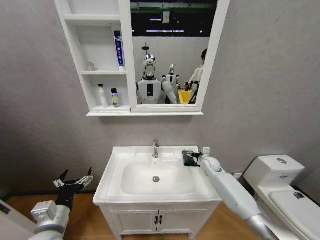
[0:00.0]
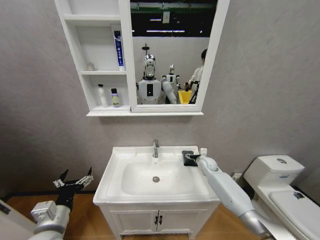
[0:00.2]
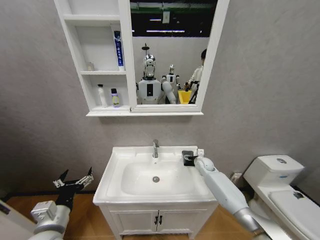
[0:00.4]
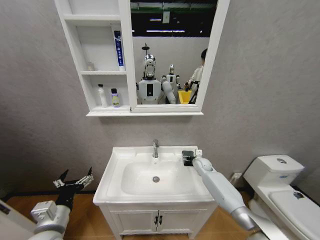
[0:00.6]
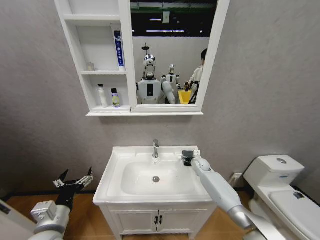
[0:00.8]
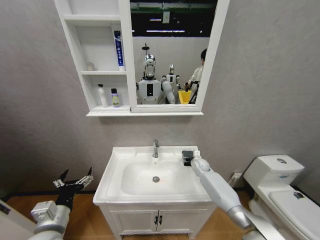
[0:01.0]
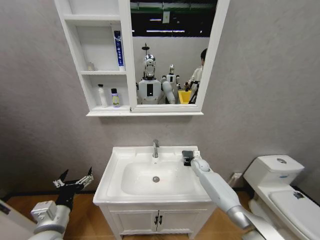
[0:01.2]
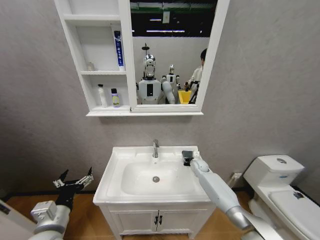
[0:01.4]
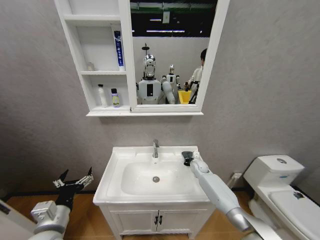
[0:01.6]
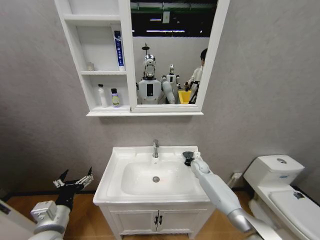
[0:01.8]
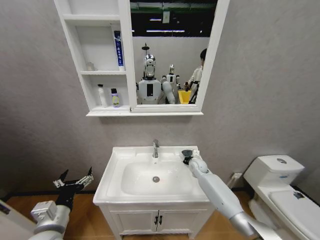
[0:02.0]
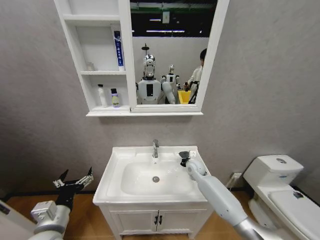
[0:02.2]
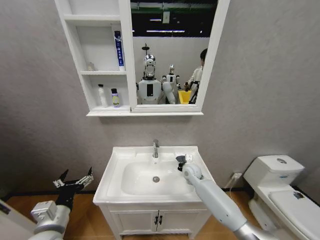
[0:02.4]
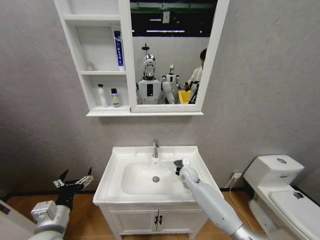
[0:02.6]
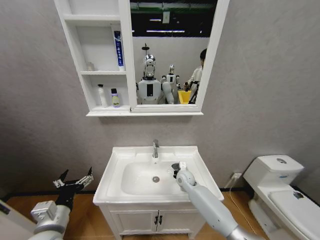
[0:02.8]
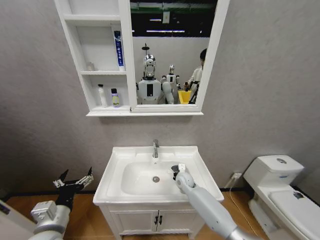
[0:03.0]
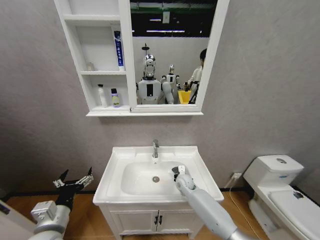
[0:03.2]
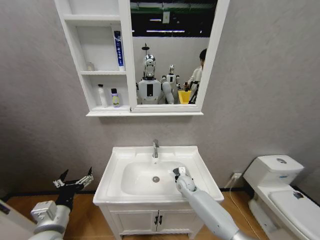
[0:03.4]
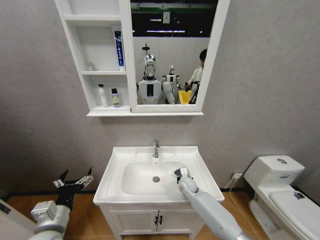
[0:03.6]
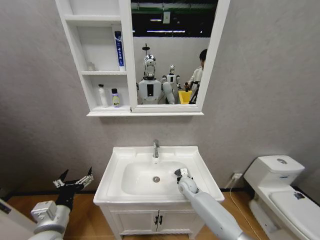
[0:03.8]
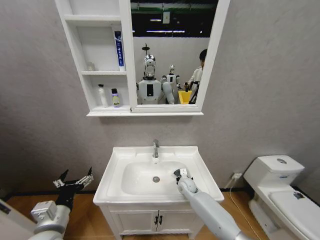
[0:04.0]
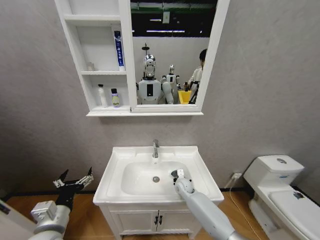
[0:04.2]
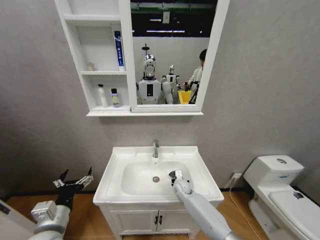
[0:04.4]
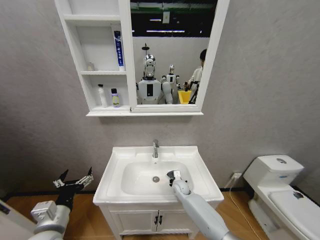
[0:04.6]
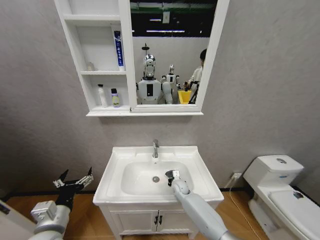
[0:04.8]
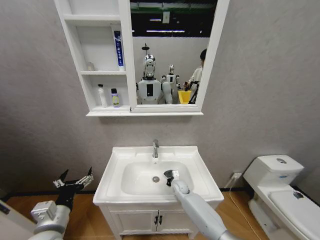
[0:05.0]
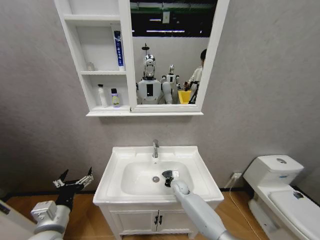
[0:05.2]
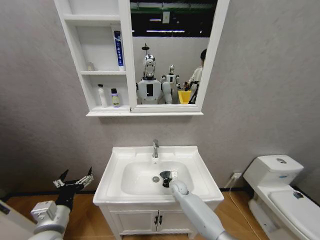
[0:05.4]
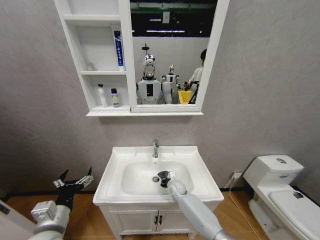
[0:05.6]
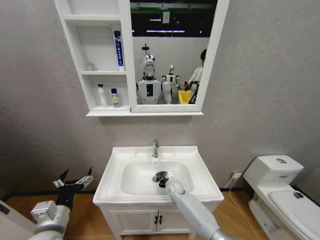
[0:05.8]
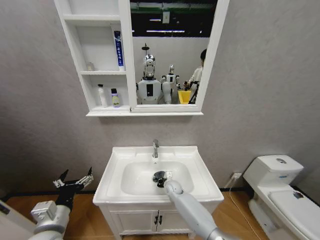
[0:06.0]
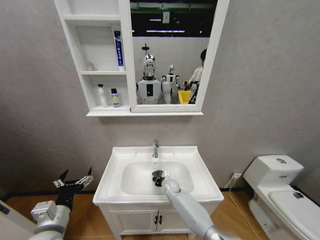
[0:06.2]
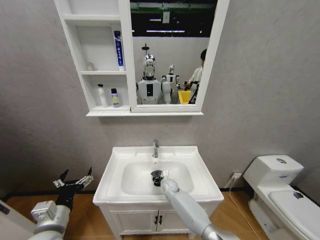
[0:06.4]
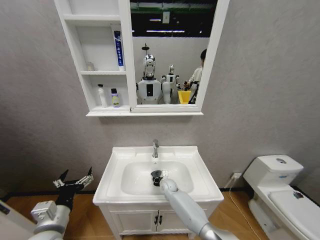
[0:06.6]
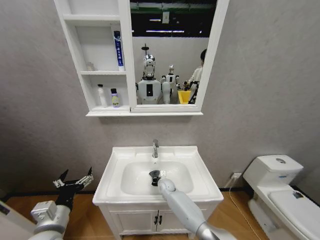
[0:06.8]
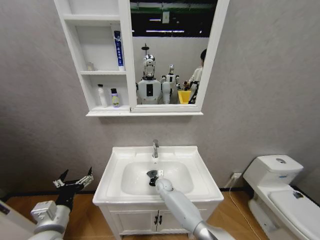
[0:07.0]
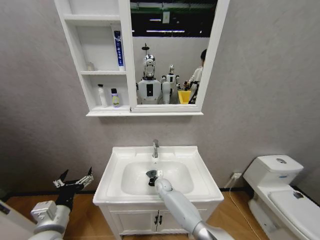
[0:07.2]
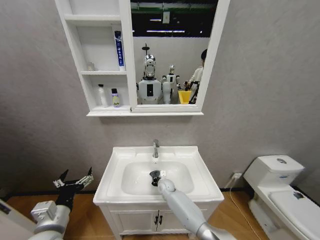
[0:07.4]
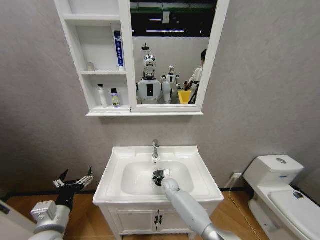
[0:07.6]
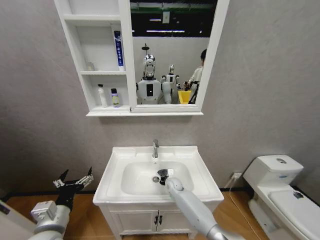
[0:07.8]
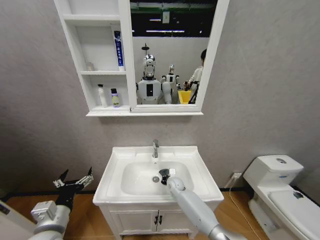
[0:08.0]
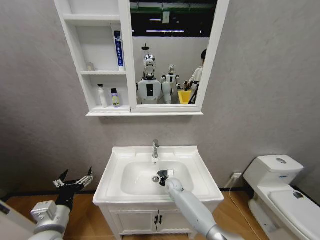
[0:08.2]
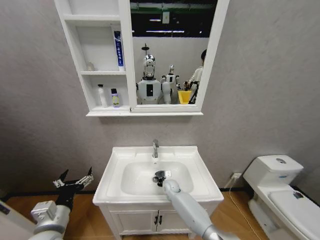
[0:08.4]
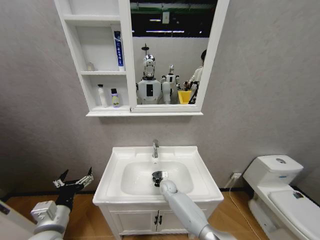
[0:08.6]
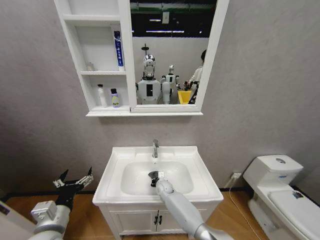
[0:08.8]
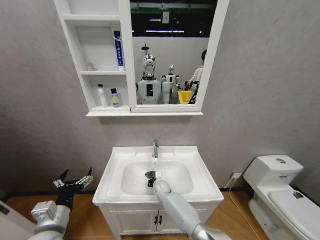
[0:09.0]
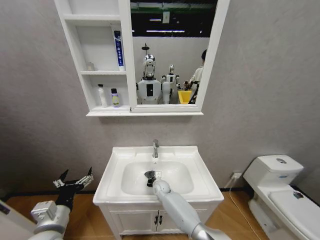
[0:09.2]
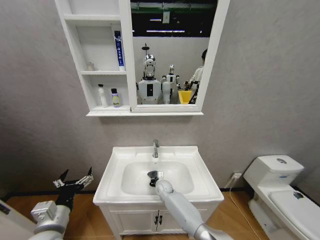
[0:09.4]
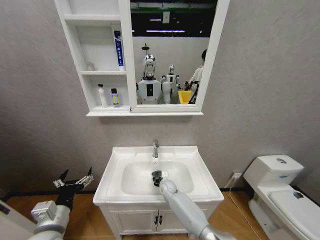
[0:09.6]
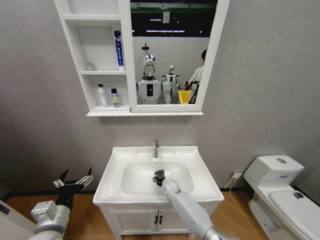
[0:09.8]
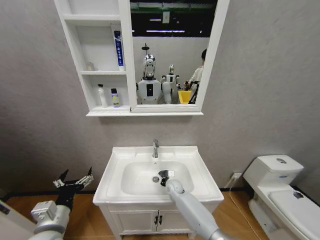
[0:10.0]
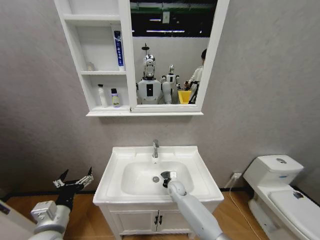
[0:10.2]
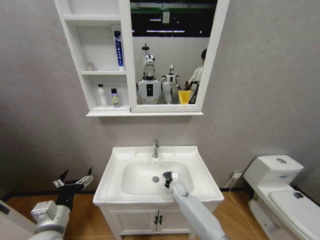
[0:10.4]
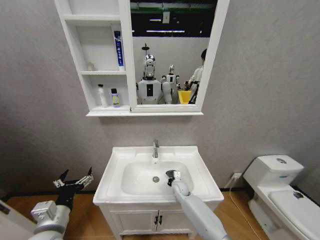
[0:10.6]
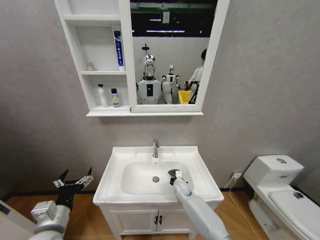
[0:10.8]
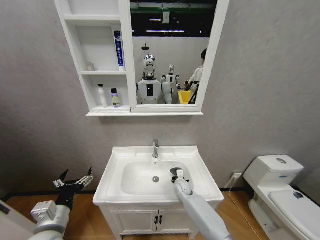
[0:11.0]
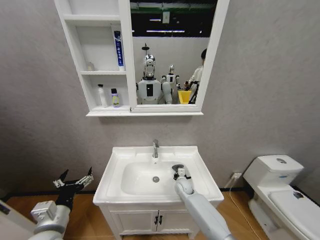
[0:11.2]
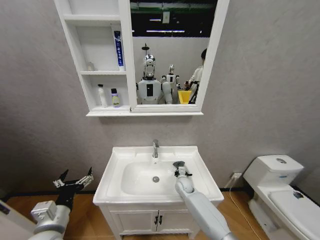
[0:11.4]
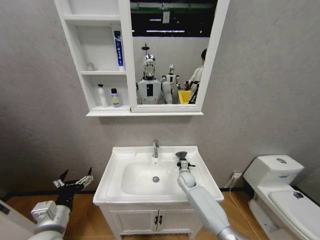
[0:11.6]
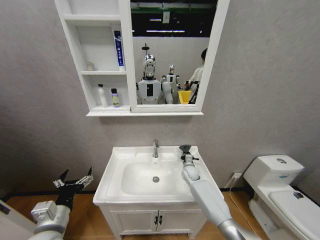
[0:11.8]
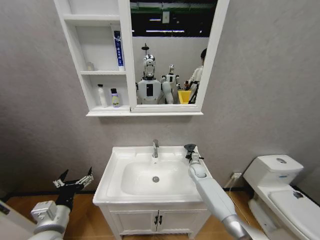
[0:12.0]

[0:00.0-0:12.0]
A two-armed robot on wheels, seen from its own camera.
Task of the whole recording: Move facial cleanser and shampoo from washbasin to cabinet, then wipe washbasin with towel.
0:00.0 to 0:01.6: The right gripper travels downward by roughly 5 cm, and closes up.
0:01.6 to 0:03.0: The right gripper shifts some 15 cm to the left and backward.
0:03.0 to 0:04.4: The right gripper shifts approximately 5 cm downward.
0:04.4 to 0:06.0: The right gripper moves roughly 5 cm.
0:07.6 to 0:09.0: The grippers stay close to where they were, moving slightly.
0:09.0 to 0:10.4: The right gripper shifts roughly 10 cm to the right.
0:10.4 to 0:12.0: The right gripper shifts about 15 cm to the right, forward and upward.

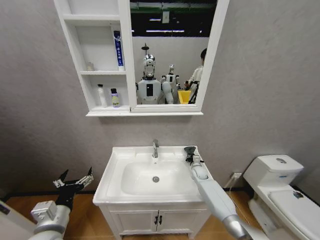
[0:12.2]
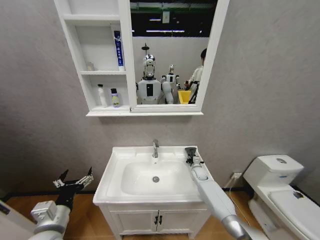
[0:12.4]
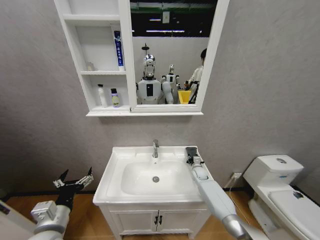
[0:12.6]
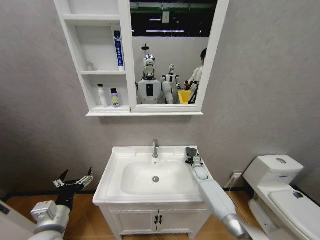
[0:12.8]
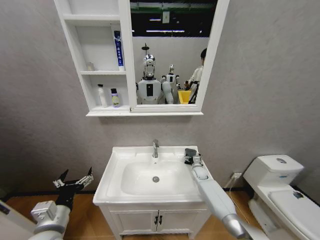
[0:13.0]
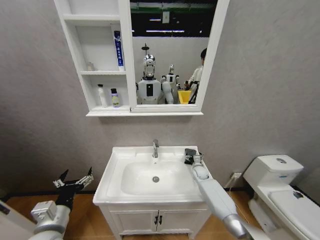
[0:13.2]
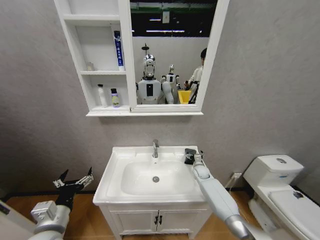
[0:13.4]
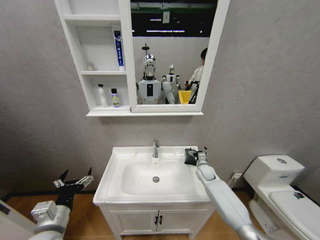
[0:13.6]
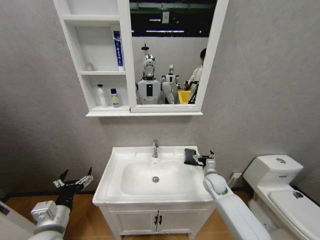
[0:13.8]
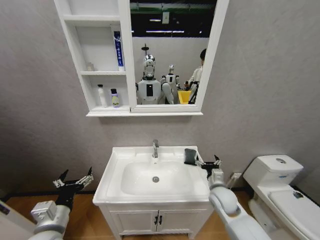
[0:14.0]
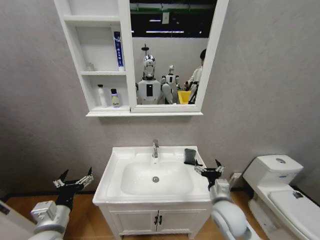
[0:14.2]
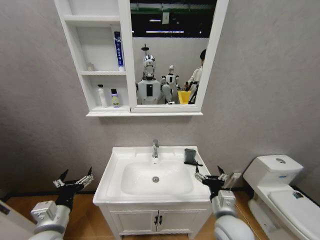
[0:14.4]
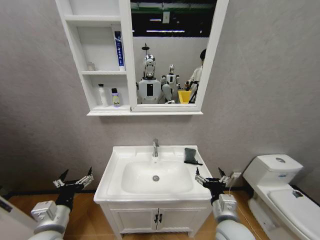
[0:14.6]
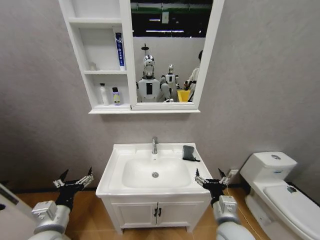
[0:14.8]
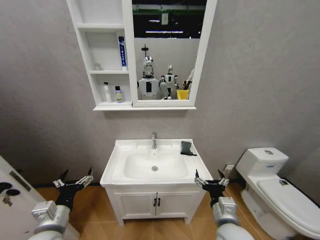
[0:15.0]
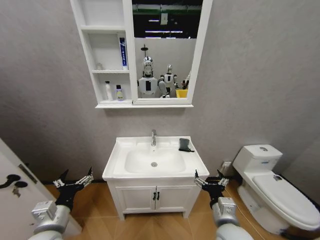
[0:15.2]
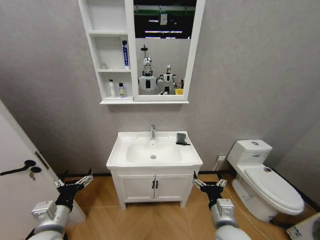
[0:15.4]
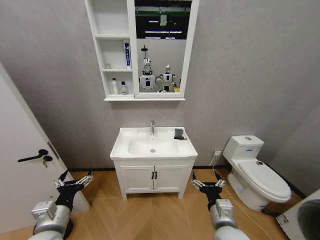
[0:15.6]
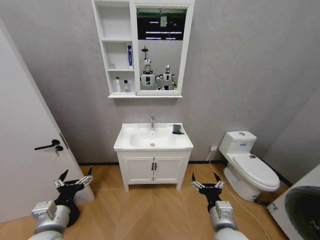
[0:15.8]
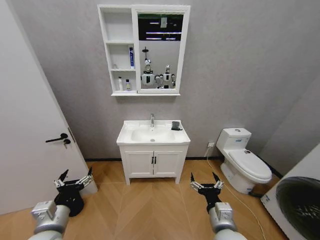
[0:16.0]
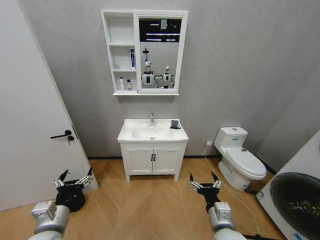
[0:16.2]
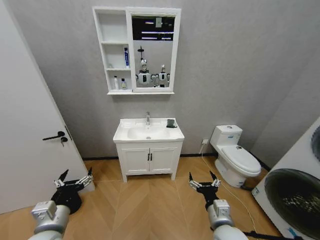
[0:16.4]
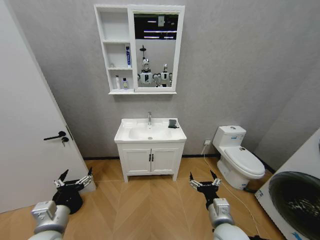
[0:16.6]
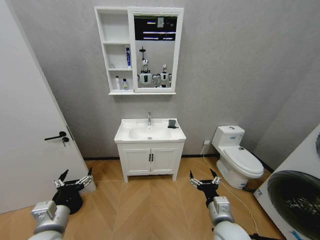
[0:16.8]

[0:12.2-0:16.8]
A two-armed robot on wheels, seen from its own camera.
Task of the whole recording: Move facial cleanser and shampoo from washbasin to cabinet, then wipe washbasin with towel.
0:12.2 to 0:13.8: The right gripper goes about 15 cm backward and upward, and opens up.
0:13.8 to 0:15.2: The right gripper moves backward, roughly 20 cm.
